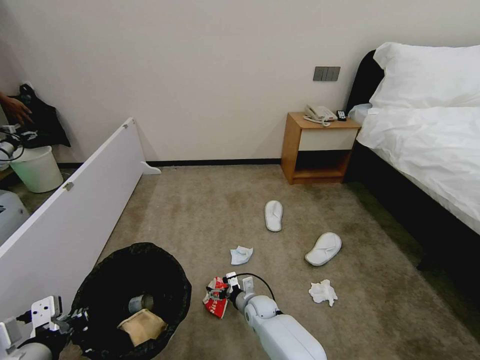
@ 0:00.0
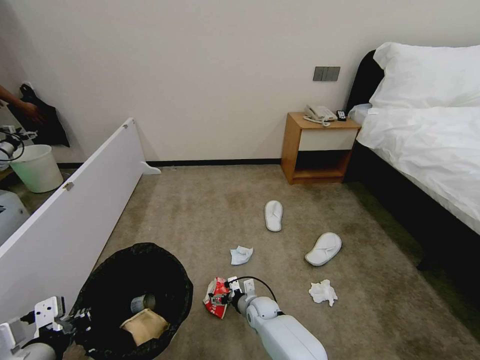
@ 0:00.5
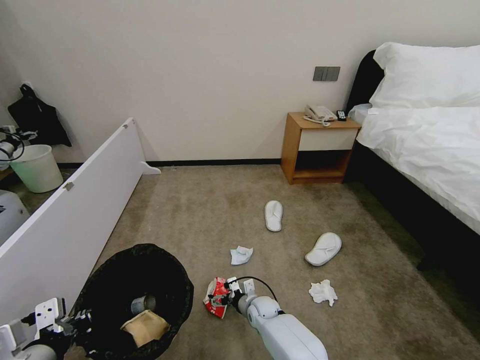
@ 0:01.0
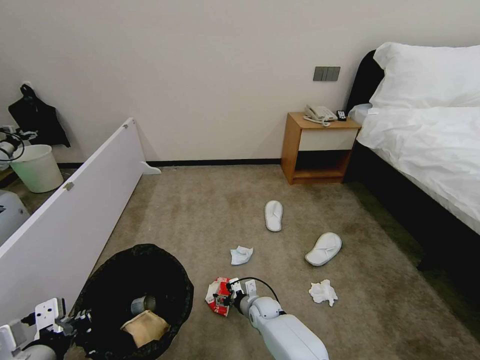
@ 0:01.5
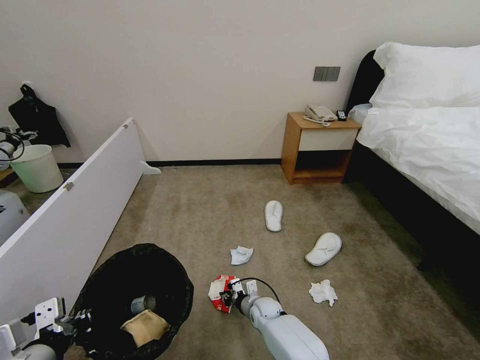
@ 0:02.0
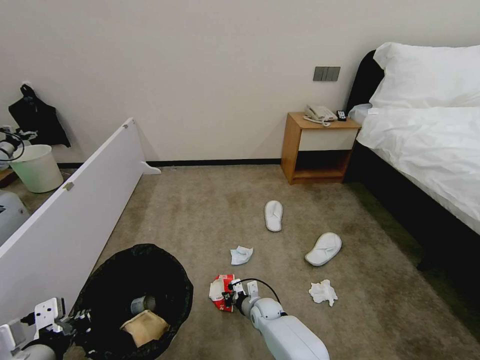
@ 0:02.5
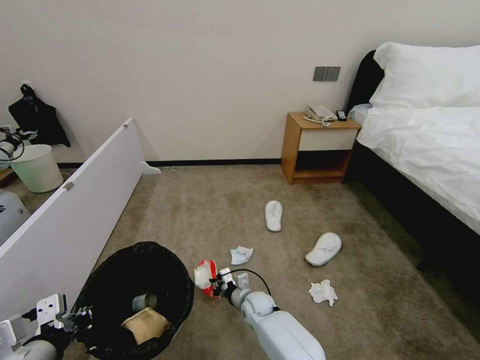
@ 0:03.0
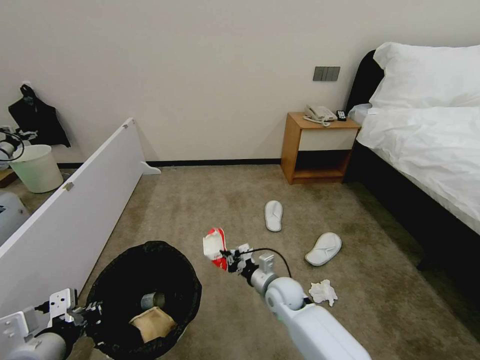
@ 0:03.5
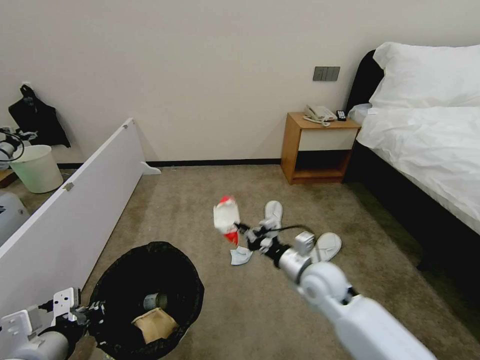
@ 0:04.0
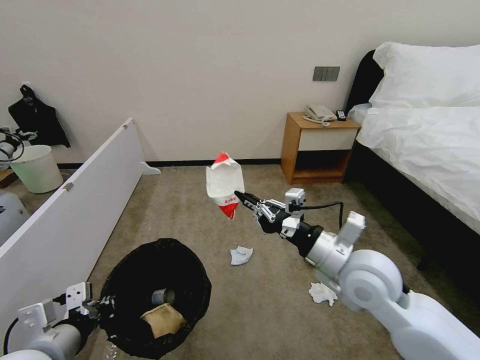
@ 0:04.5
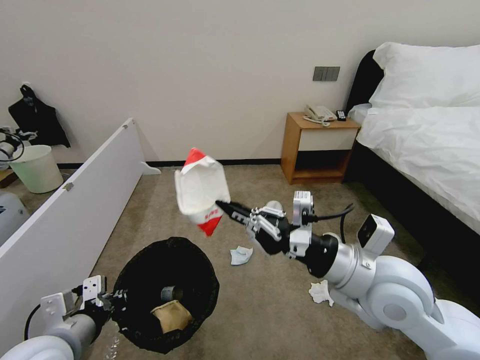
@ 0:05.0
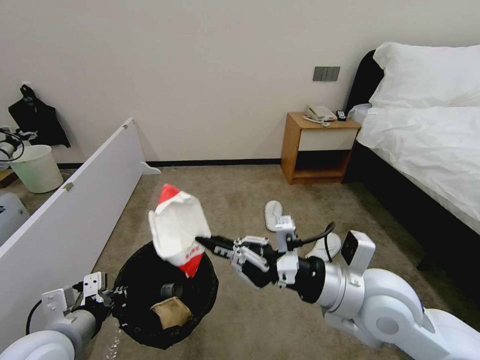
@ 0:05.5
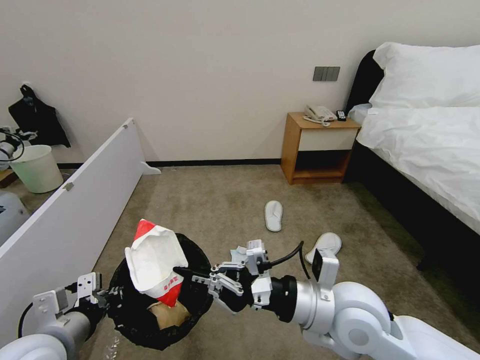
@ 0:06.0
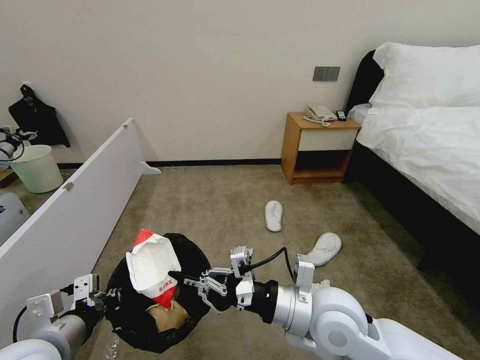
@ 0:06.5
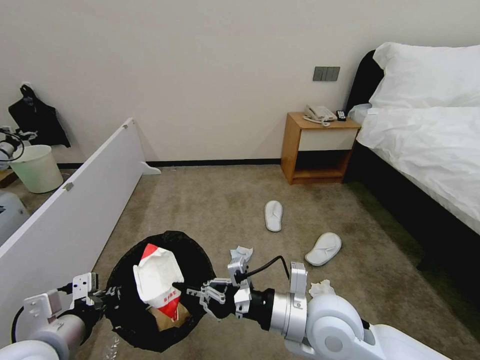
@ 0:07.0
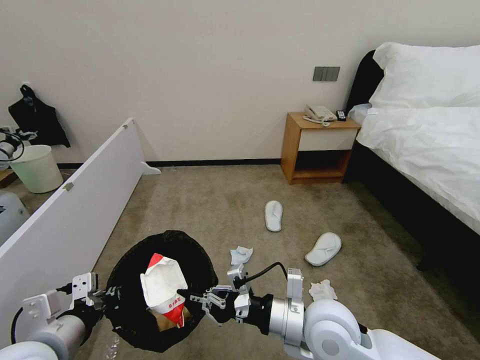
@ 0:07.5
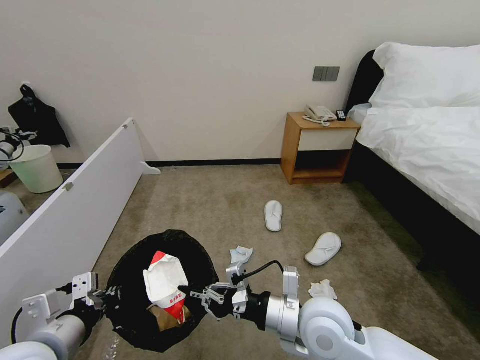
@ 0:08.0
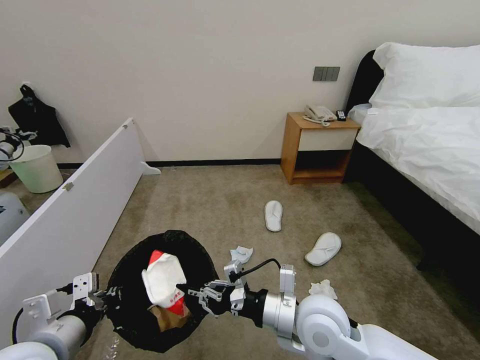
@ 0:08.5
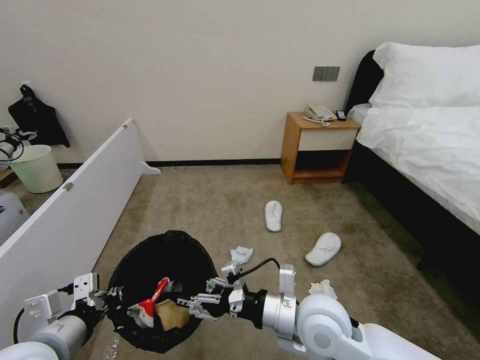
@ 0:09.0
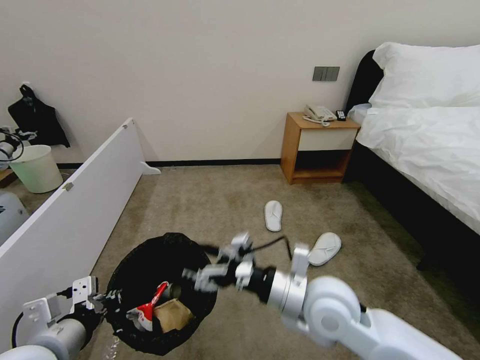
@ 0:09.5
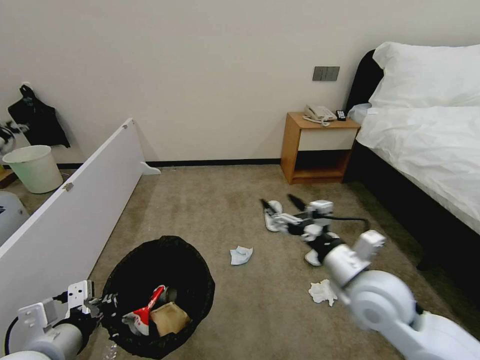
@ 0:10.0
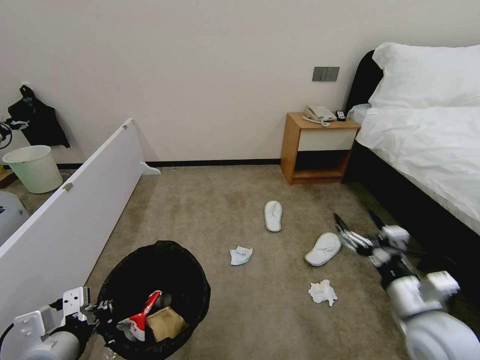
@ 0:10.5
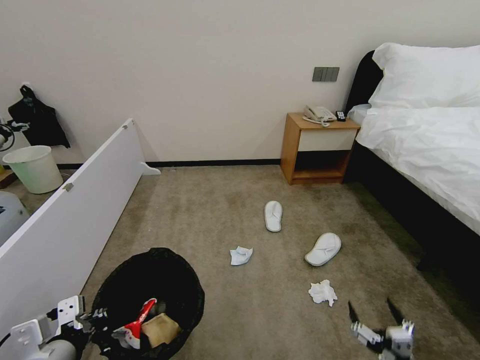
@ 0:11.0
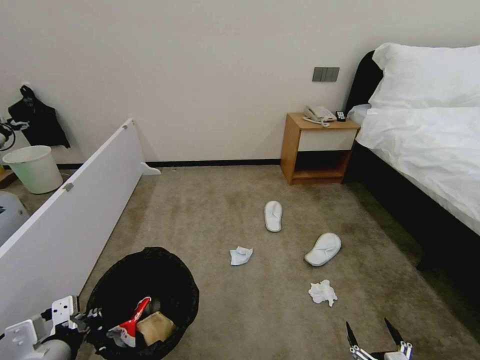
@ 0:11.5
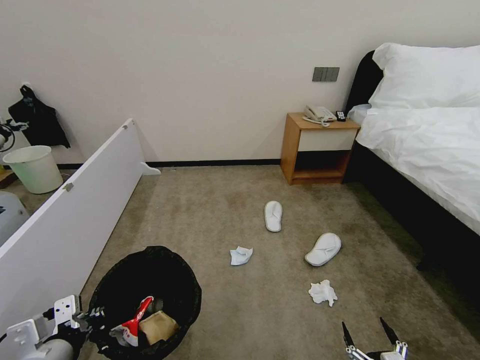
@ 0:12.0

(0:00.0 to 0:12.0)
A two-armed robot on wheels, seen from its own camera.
Task of the whole recording: Pick up the trash bin, then pick up the garbage from the floor and place it into the trash bin.
0:00.0 - 0:02.0: The right gripper closes.
0:02.0 - 0:04.0: The right gripper heads upward, covering some 25 cm.
0:04.0 - 0:06.0: The right gripper is displaced backward and upward by roughly 15 cm.
0:06.0 - 0:08.0: The right gripper shifts roughly 5 cm downward.
0:08.0 - 0:10.0: The right gripper is displaced to the right by roughly 10 cm, and opens its fingers.
0:10.0 - 0:12.0: The right gripper goes some 35 cm downward and backward.

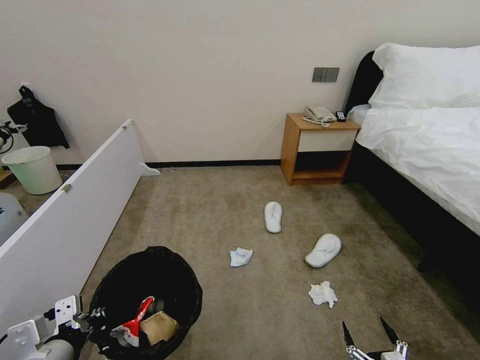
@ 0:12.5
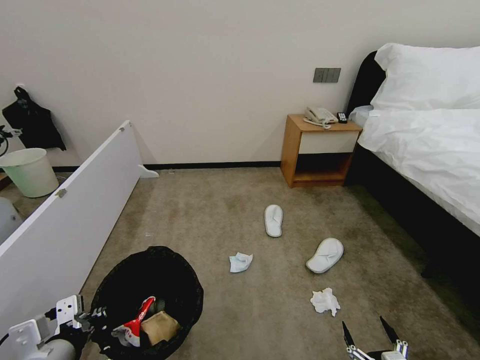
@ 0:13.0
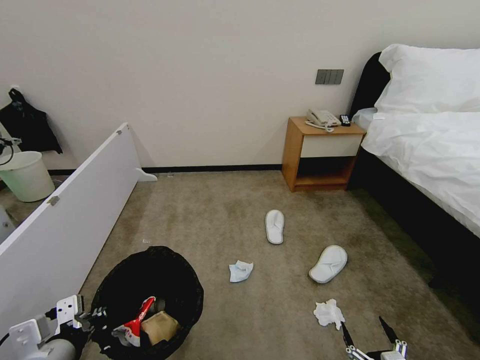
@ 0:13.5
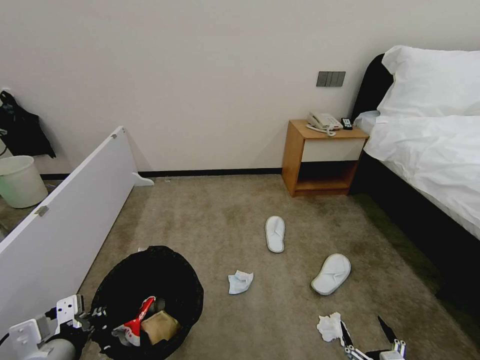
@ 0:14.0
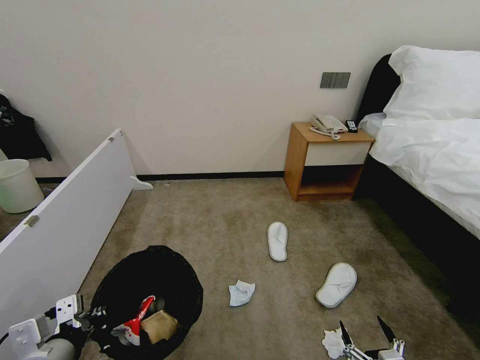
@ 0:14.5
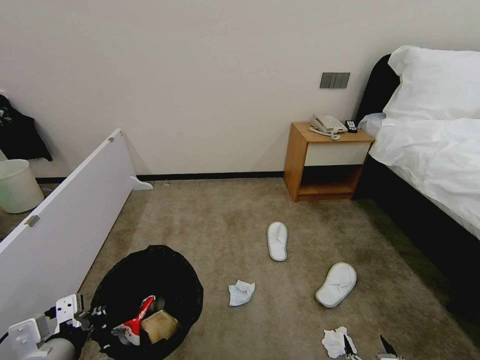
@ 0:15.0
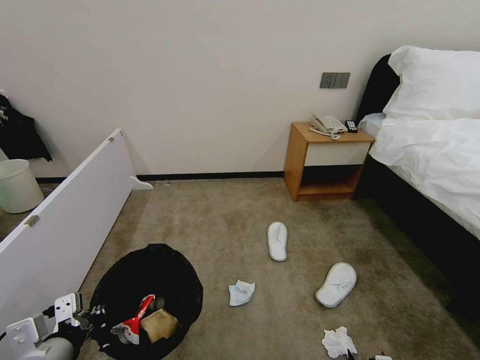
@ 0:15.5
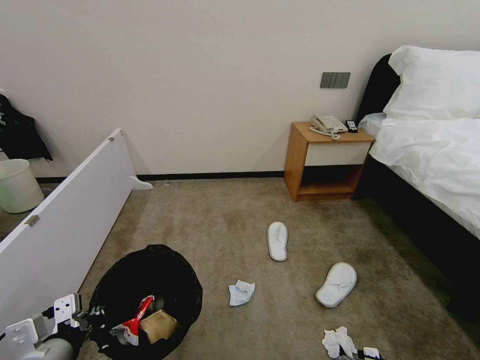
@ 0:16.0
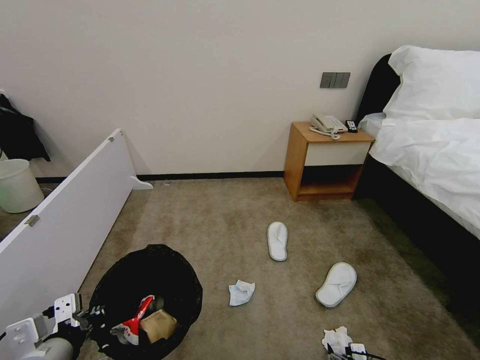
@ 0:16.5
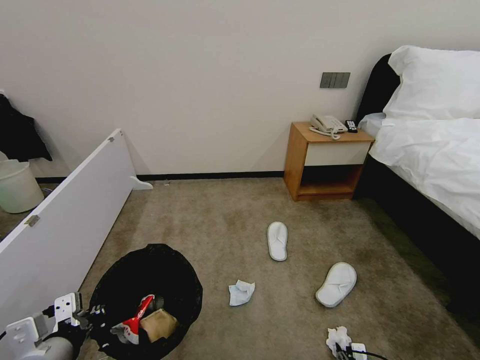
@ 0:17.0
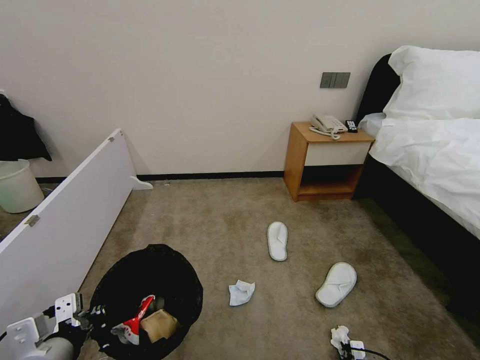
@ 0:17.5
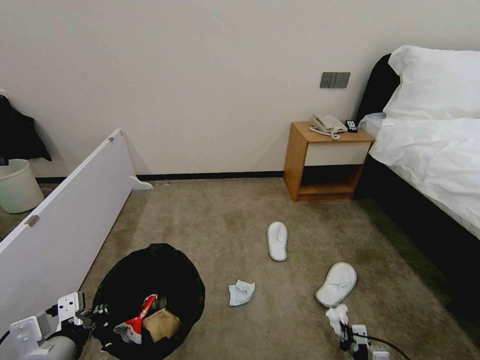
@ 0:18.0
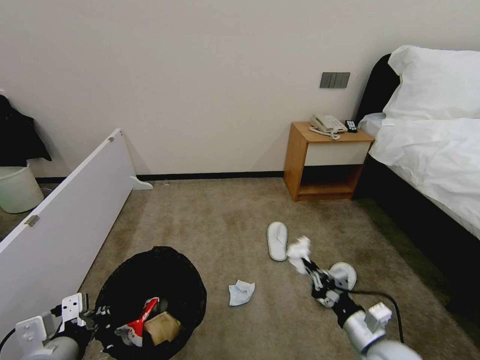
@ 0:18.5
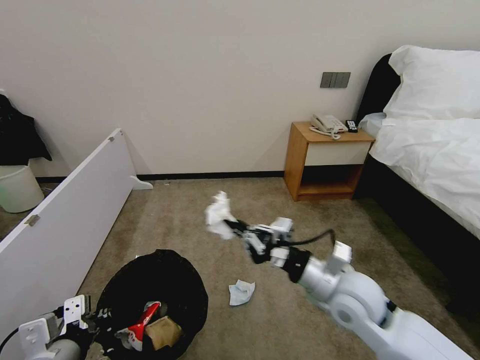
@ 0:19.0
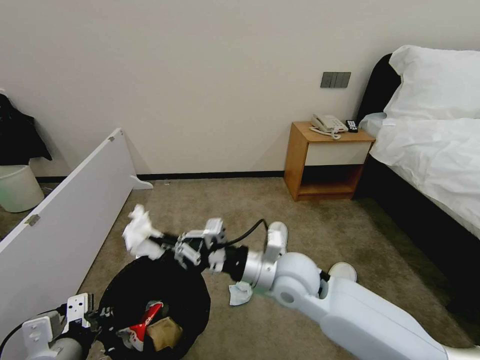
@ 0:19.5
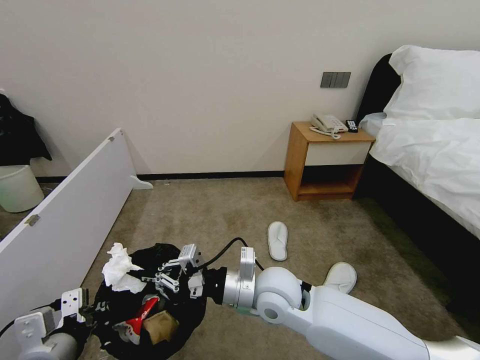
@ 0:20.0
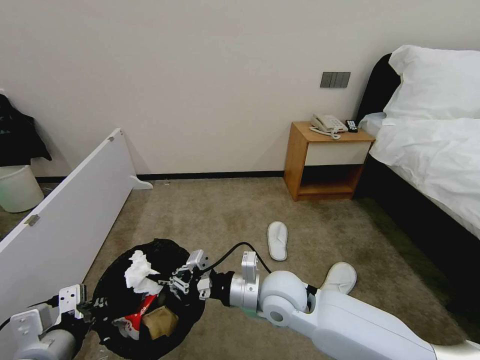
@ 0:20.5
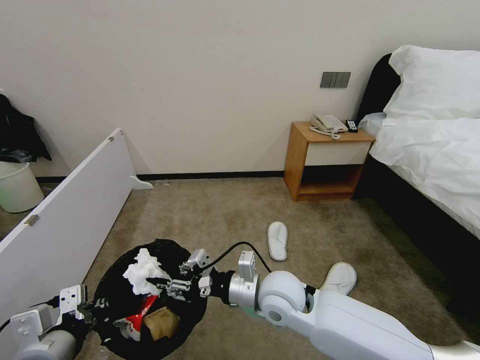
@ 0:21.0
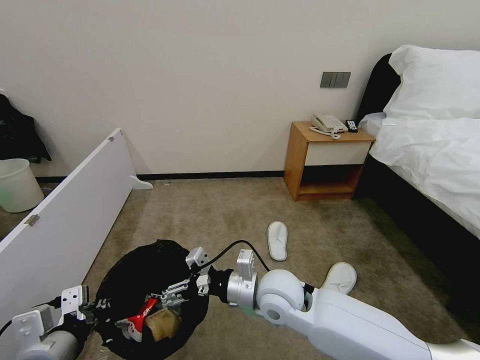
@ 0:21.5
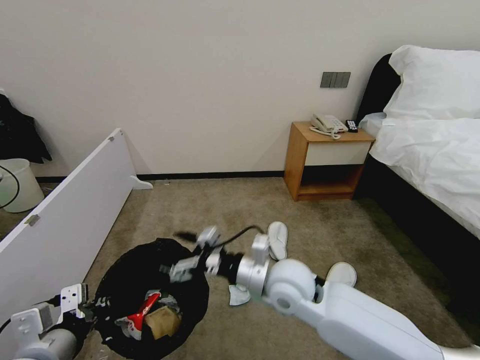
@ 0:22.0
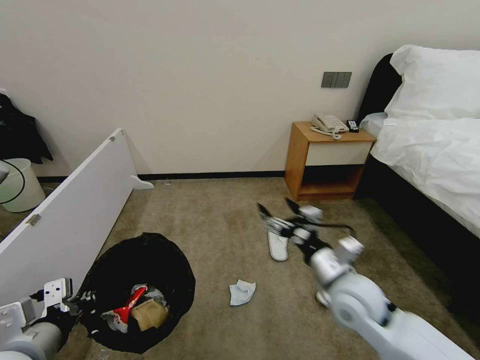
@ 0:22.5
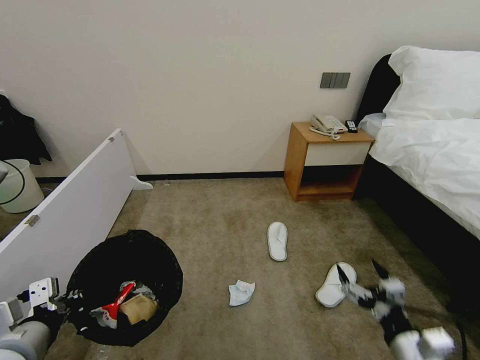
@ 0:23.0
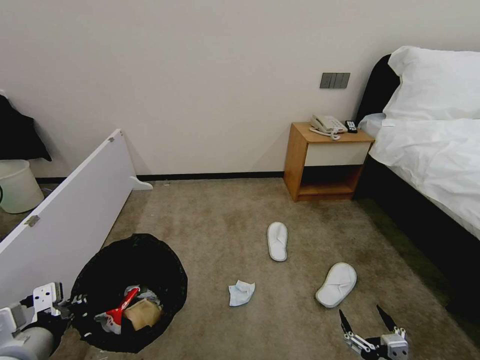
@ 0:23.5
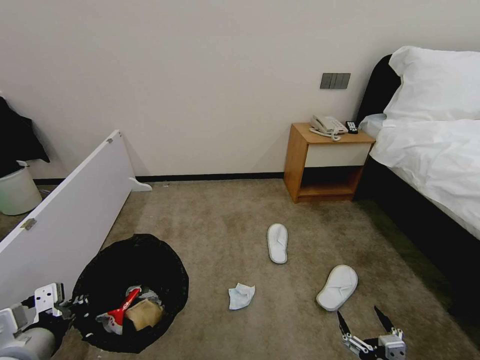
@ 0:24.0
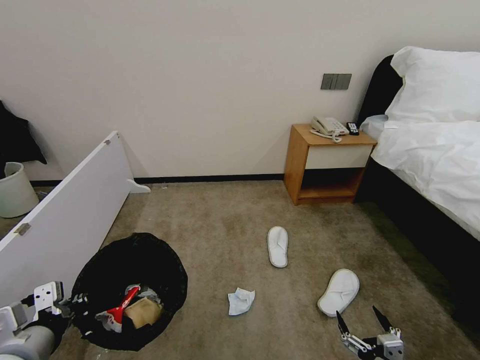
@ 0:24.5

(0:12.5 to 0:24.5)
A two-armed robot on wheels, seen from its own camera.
Task of the whole recording: Pick up the trash bin, then pick up the garbage from the floor and place it into the trash bin.
0:12.5 - 0:14.5: Both grippers stay put.
0:14.5 - 0:16.5: The right gripper goes some 15 cm downward and forward.
0:16.5 - 0:18.5: The right gripper is displaced upward by roughly 20 cm, and closes up.
0:18.5 - 0:20.5: The right gripper is displaced to the left, forward and upward by some 25 cm.
0:20.5 - 0:22.5: The right gripper travels to the right by some 10 cm, and opens.
0:22.5 - 0:24.5: The right gripper goes some 30 cm backward, downward and to the right.

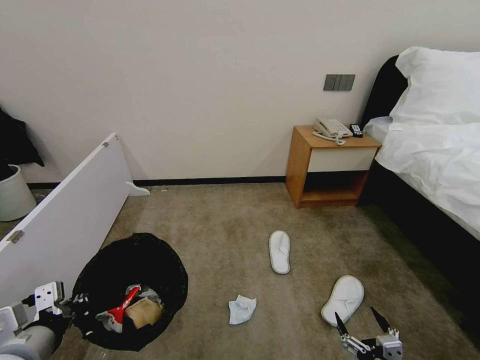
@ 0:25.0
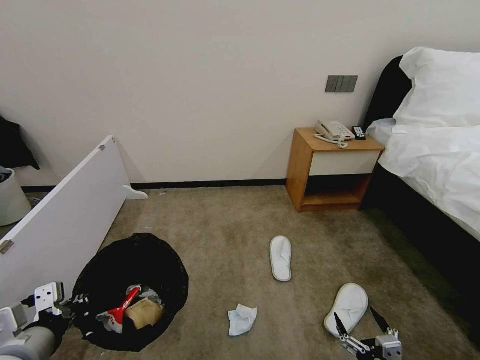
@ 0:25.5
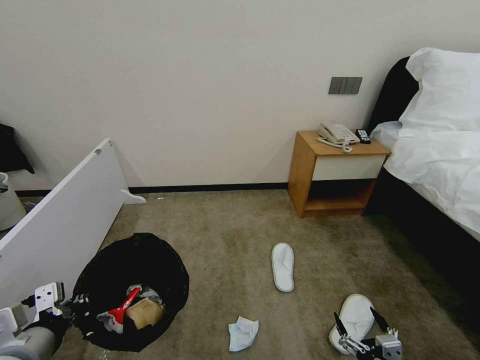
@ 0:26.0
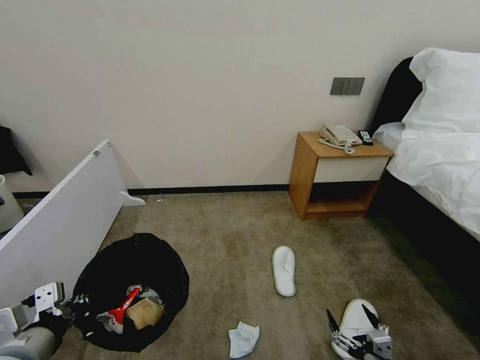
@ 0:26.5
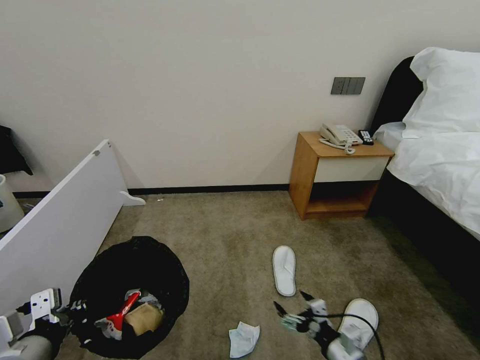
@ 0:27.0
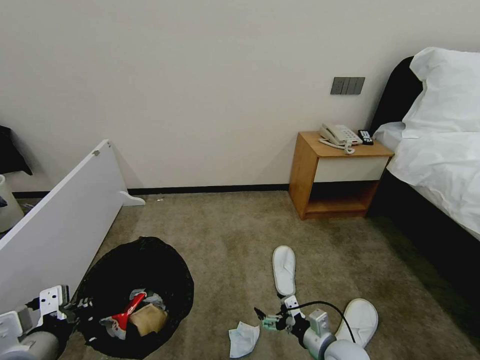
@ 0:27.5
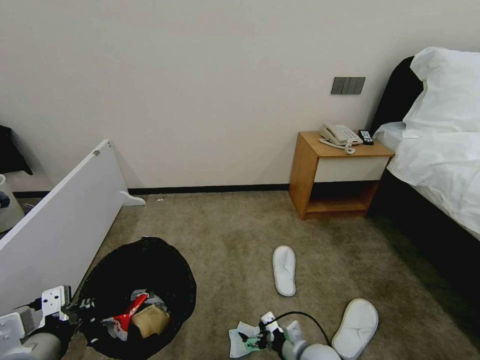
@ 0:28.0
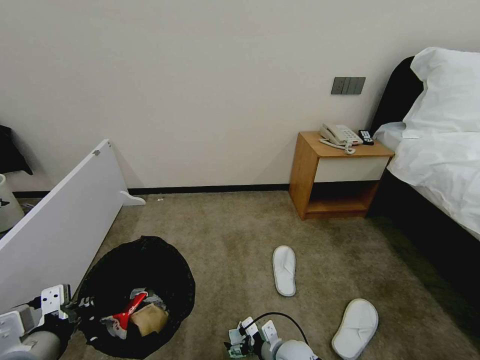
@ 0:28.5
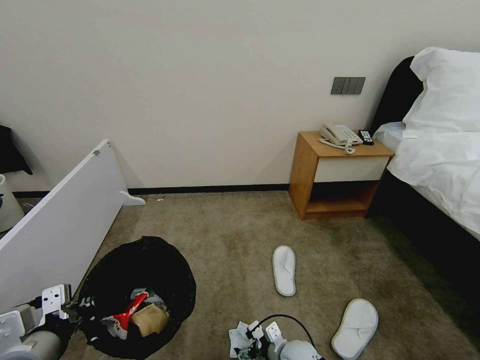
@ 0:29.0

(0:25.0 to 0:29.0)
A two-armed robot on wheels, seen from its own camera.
Task of the whole recording: Pick up the trash bin, then pick up the garbage from the floor and place it into the trash bin.
0:25.0 - 0:27.0: The right gripper shifts roughly 10 cm forward and to the left.
0:27.0 - 0:29.0: The right gripper goes some 20 cm to the left, downward and forward.
